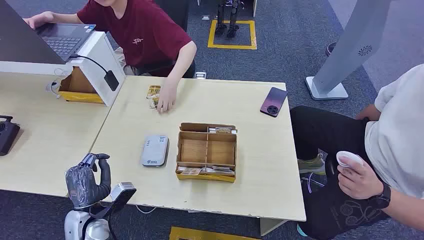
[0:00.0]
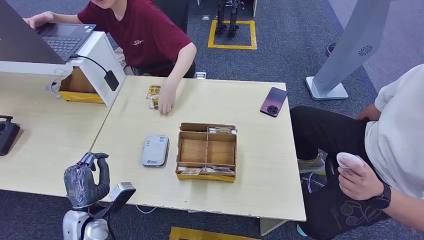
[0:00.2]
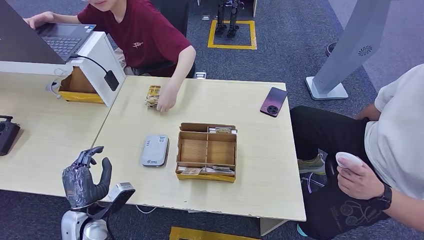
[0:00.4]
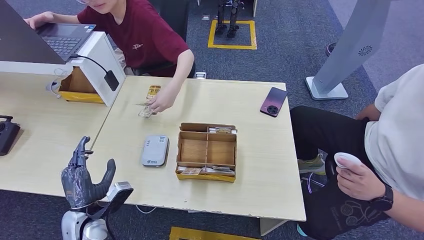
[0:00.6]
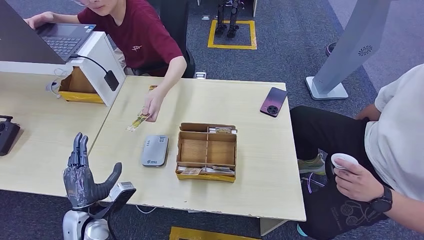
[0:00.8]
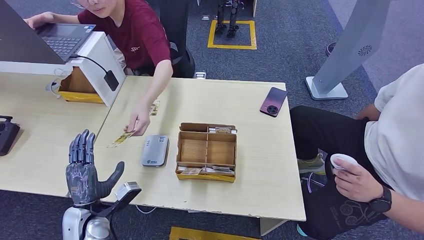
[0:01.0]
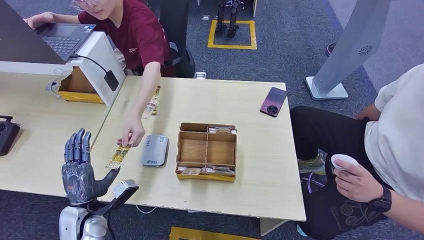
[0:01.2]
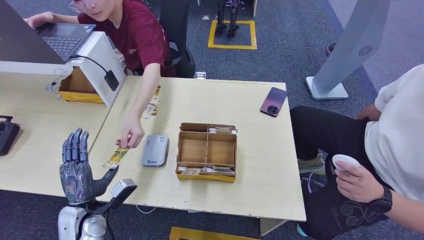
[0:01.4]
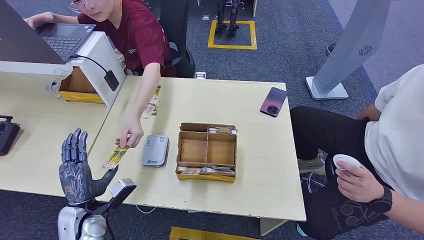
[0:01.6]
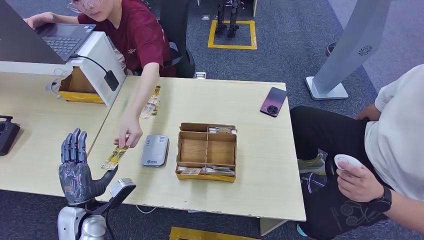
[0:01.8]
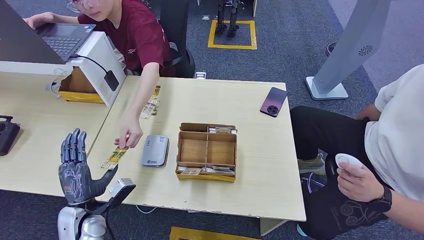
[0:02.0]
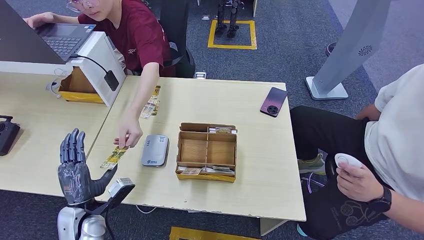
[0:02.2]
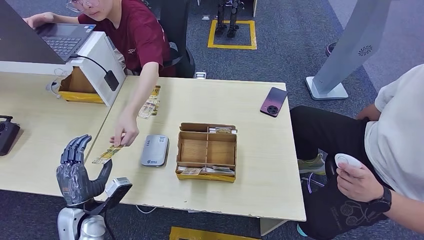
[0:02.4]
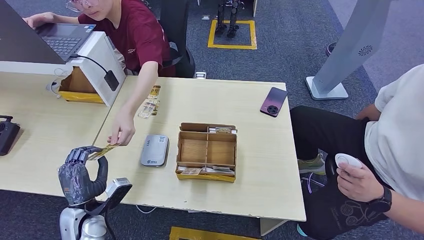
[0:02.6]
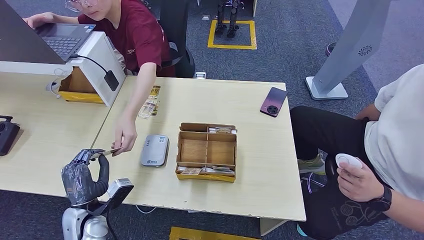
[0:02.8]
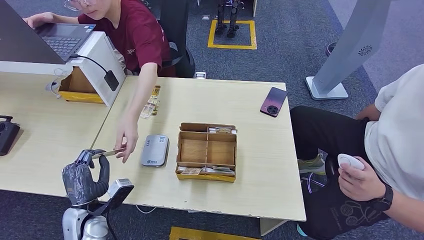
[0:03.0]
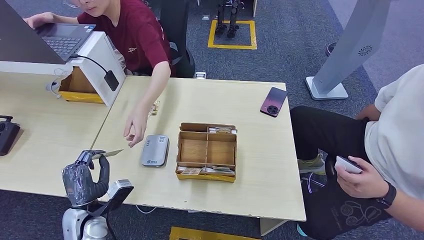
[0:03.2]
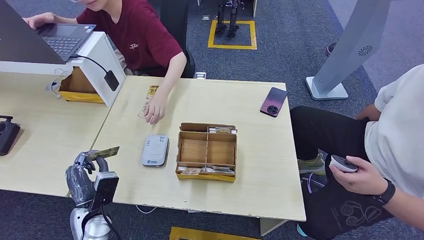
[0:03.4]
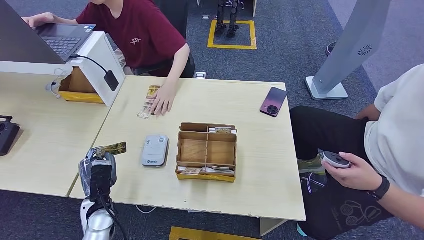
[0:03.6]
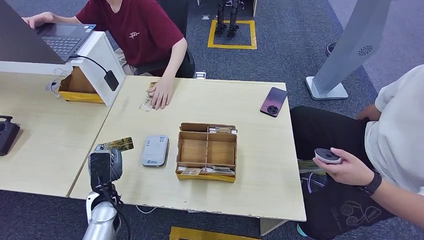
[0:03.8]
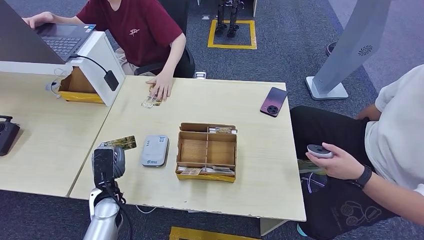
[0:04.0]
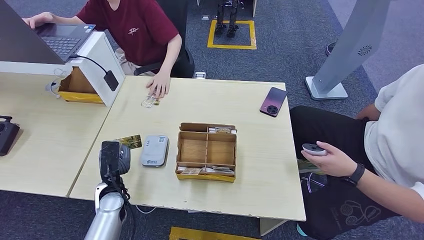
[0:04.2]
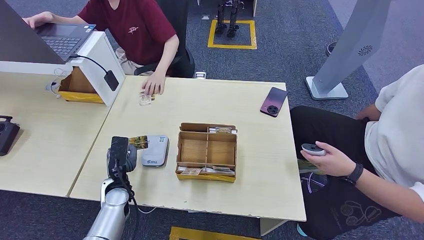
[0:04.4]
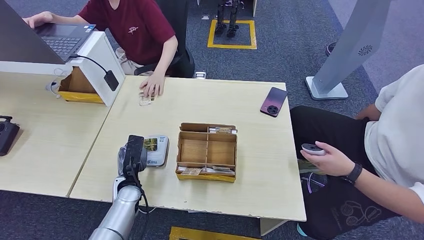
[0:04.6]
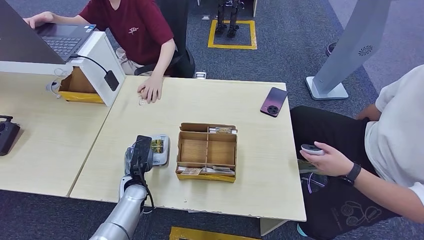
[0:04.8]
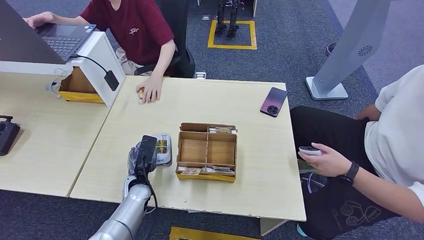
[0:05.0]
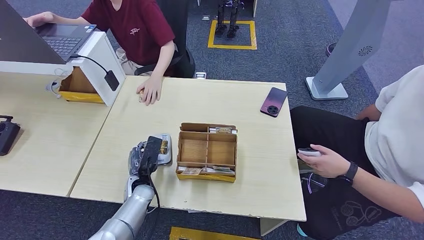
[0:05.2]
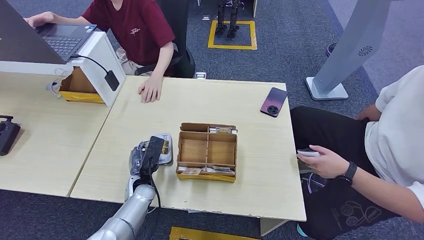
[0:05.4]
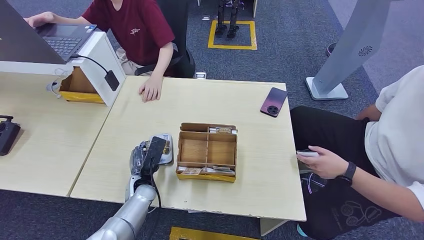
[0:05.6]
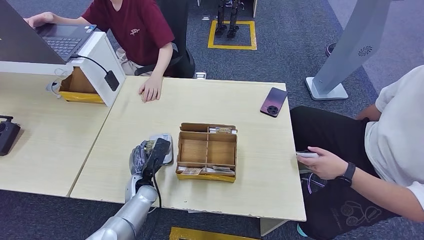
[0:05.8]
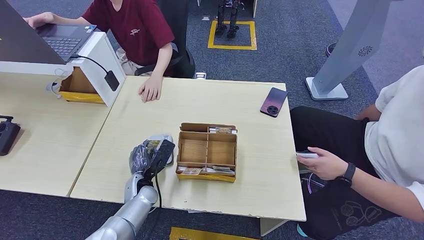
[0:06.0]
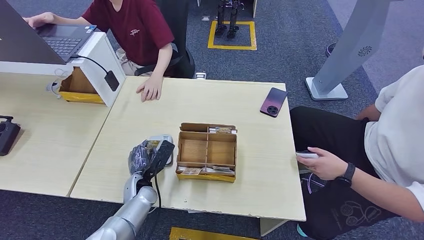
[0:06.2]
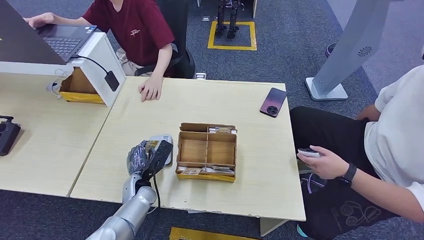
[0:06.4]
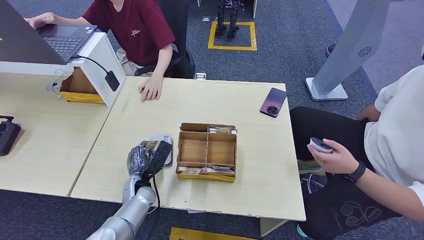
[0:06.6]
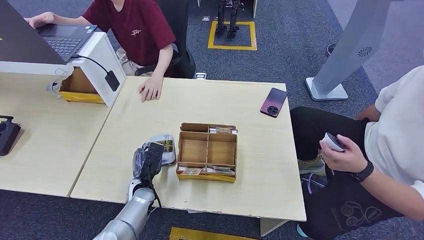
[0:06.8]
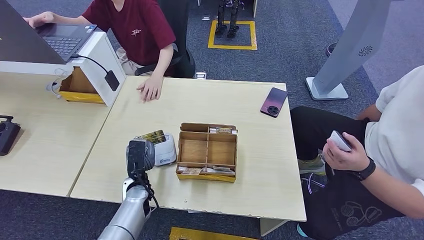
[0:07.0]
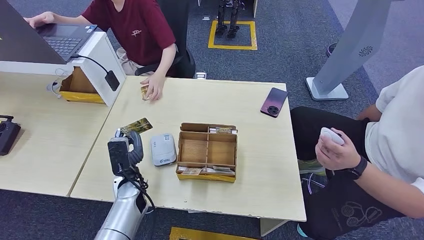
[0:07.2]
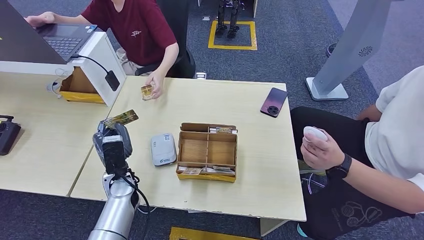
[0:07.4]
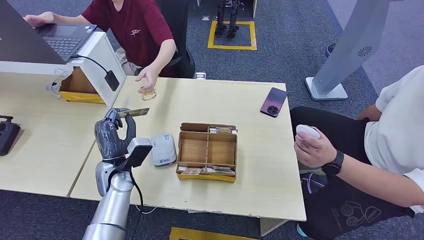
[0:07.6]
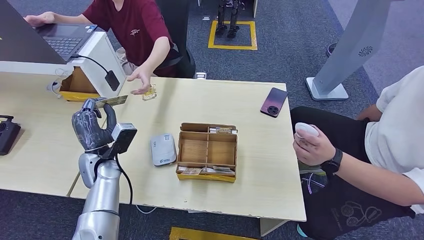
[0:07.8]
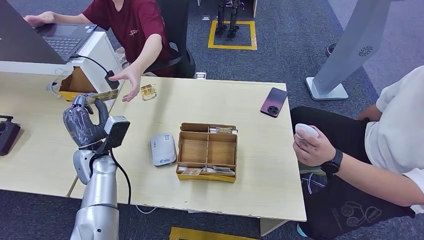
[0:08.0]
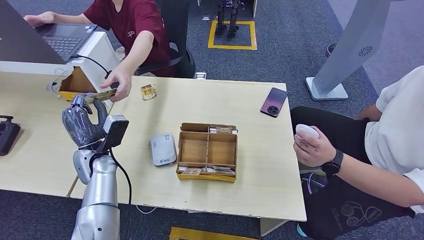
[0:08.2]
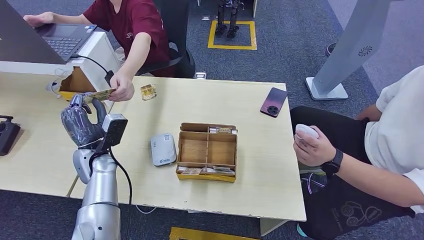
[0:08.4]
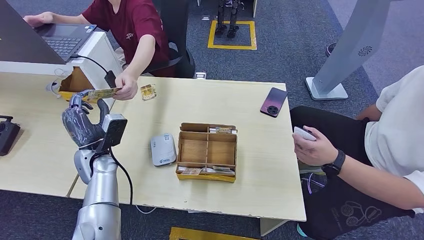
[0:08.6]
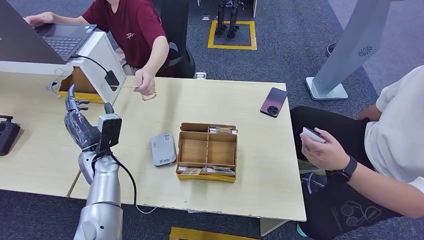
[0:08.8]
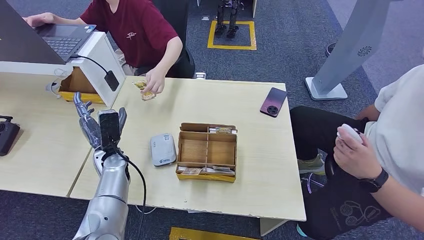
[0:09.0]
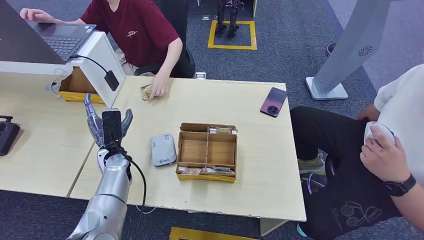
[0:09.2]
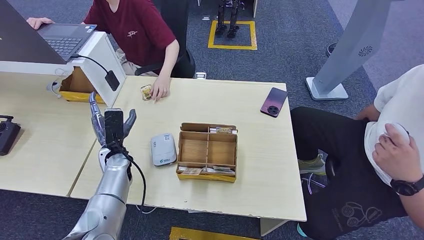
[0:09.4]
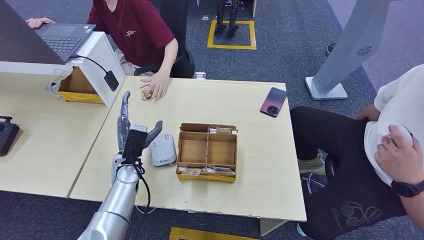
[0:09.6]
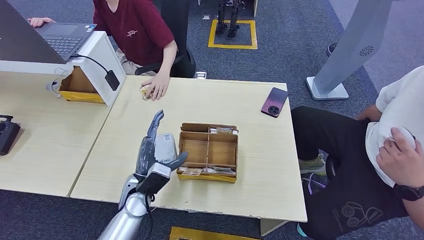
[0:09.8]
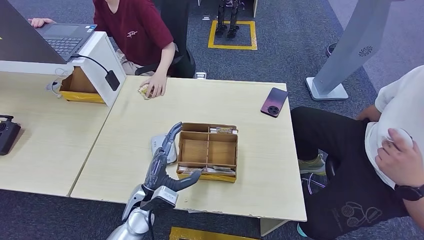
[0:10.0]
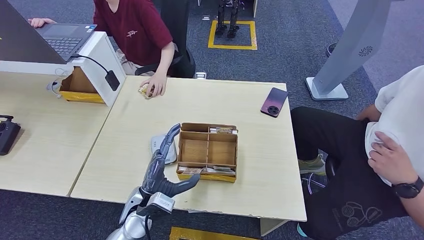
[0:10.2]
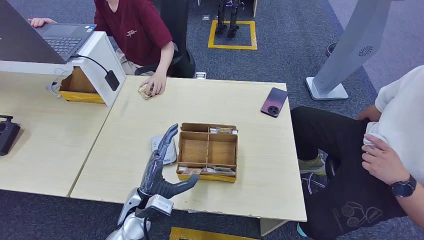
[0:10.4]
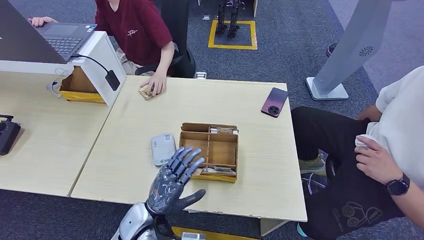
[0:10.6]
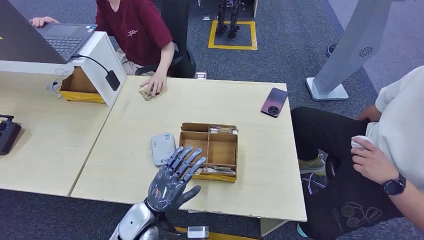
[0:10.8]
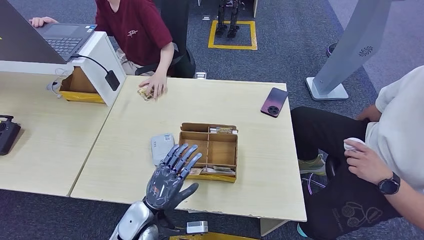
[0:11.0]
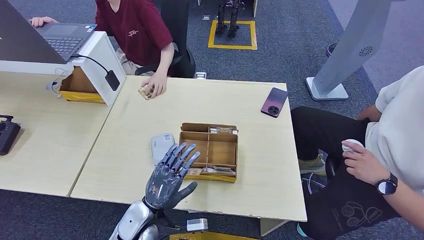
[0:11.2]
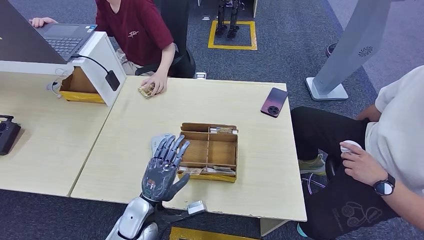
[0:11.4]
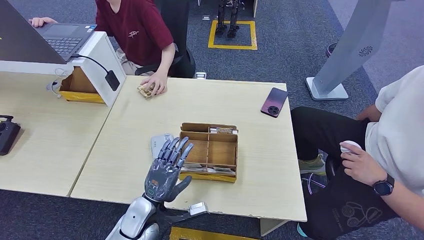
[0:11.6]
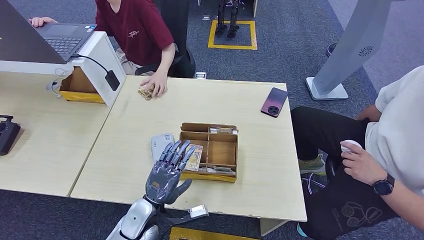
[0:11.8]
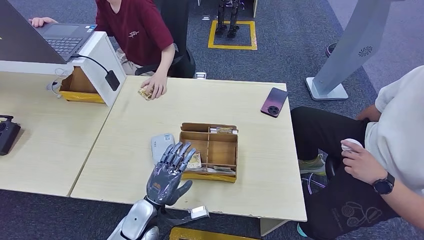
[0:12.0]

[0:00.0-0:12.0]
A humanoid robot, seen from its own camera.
Step, 0:00.0 to 0:02.8: Take the ID card from the person's hand.
Step, 0:03.2 to 0:06.0: Place the ID card on the card reader.
Step, 0:06.4 to 0:09.2: Hand the ID card to the person.
0:01.6 to 0:03.0: The hands move only a little.
0:03.0 to 0:04.4: The left hand shifts roughly 10 cm forward.
0:04.4 to 0:06.0: The left hand shifts some 5 cm to the right.
0:06.0 to 0:07.6: The left hand goes some 10 cm upward.
0:07.6 to 0:09.0: The left hand moves some 5 cm.
0:09.0 to 0:10.4: The left hand travels backward and to the right by roughly 20 cm.

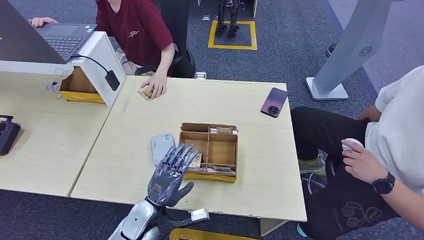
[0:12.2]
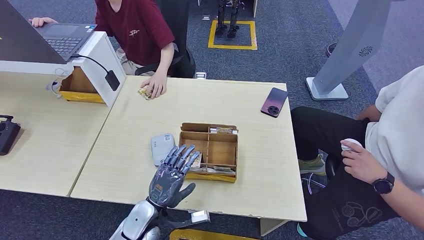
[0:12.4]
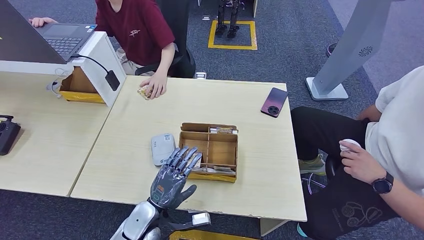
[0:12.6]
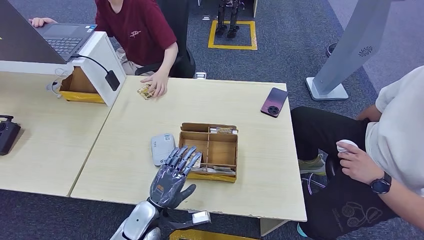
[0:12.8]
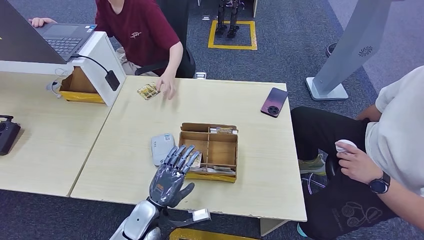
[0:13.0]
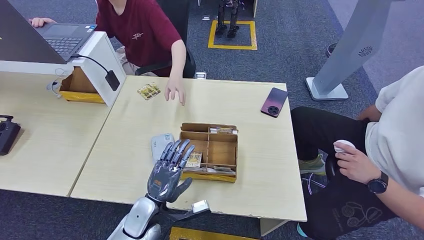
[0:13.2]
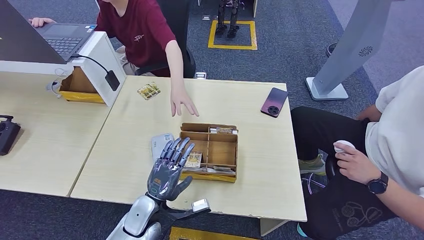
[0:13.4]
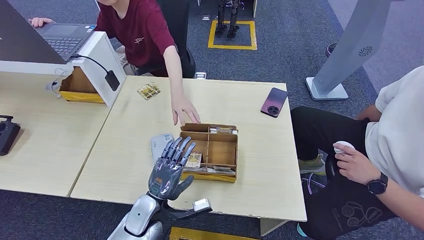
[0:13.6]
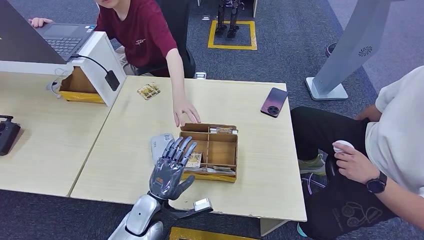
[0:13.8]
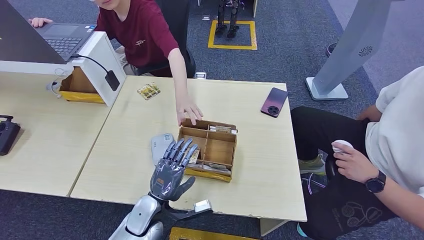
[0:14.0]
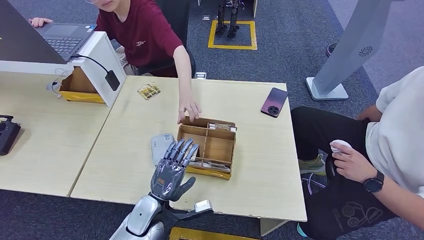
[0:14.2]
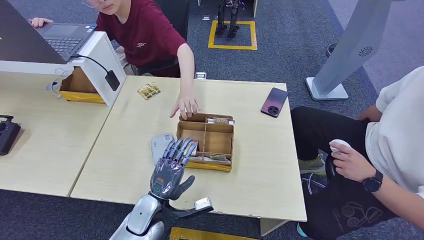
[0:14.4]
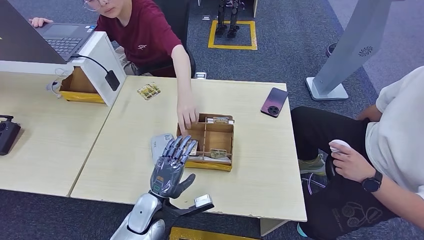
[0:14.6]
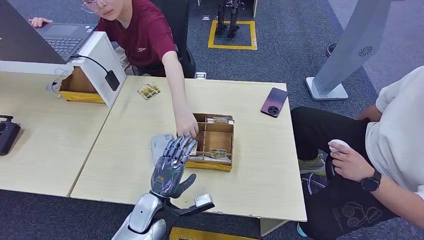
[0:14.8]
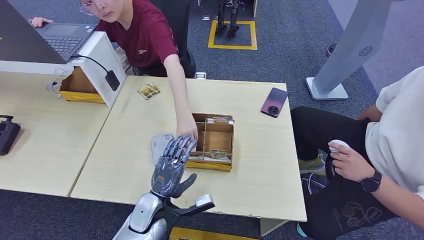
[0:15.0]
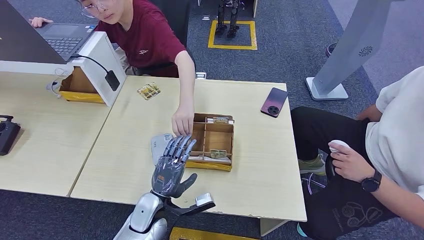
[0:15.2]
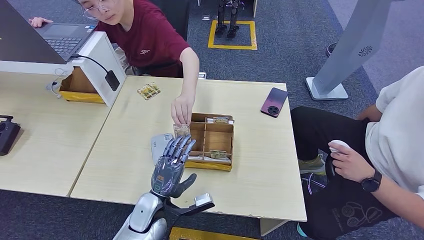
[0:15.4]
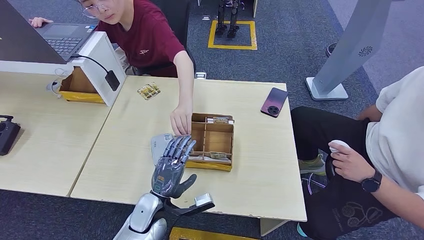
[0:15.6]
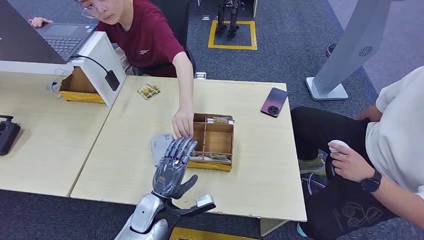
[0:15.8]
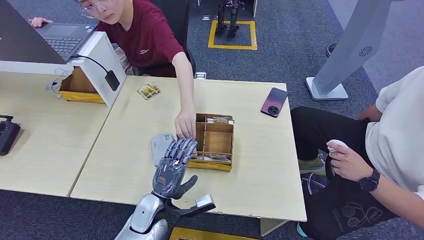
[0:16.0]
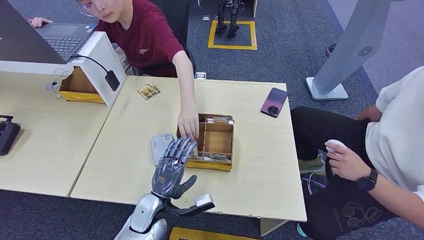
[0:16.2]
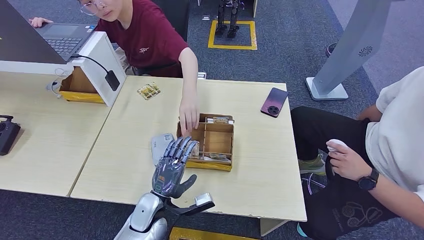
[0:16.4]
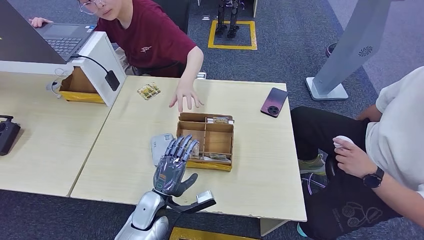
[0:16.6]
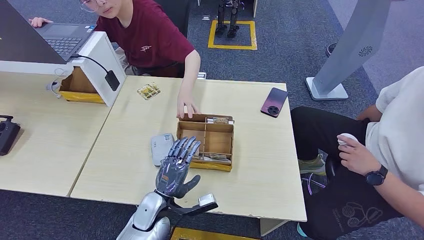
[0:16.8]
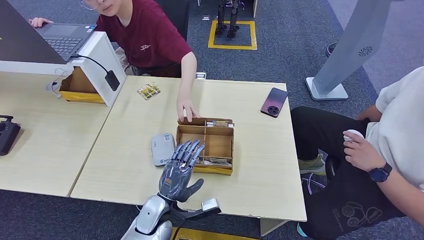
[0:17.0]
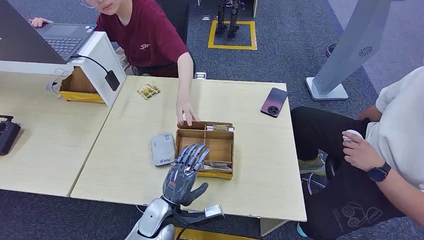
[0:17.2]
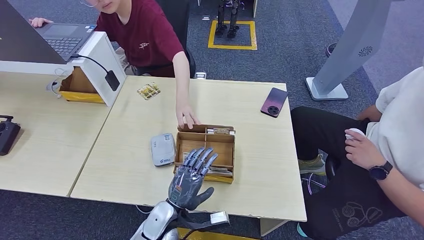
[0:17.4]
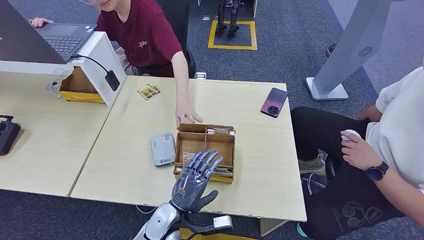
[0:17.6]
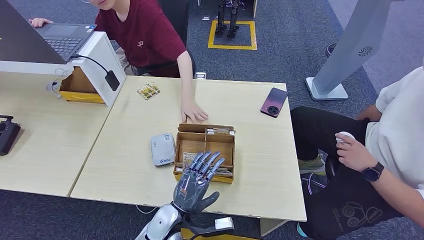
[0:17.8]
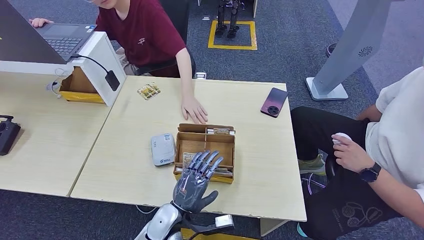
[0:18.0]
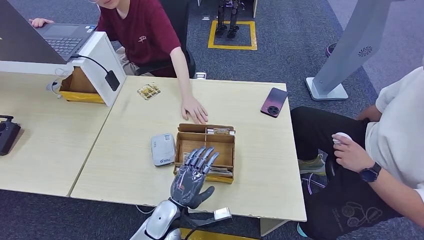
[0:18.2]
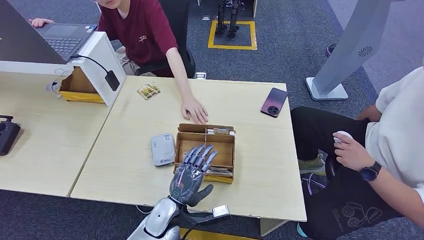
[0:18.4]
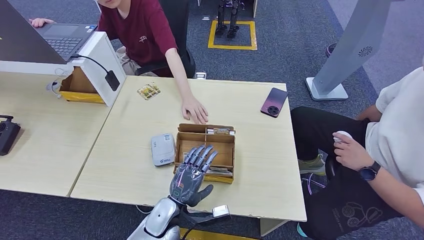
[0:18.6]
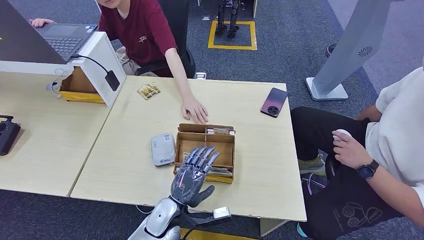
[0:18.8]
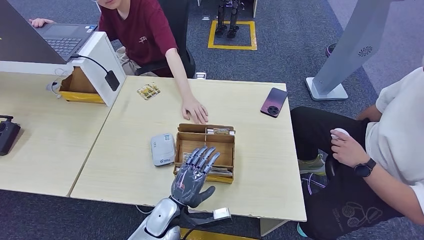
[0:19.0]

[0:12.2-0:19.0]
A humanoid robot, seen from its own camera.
0:12.2 to 0:13.6: Both hands stay put.
0:13.6 to 0:16.2: Neither hand changes place.
0:16.2 to 0:19.0: There are only small adjustments of the hands.
